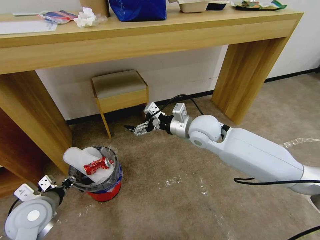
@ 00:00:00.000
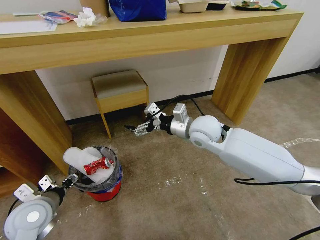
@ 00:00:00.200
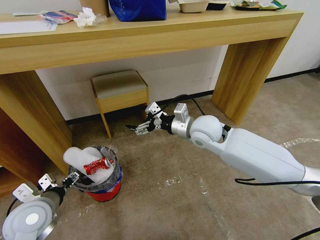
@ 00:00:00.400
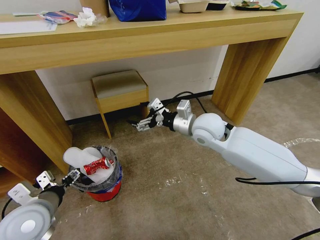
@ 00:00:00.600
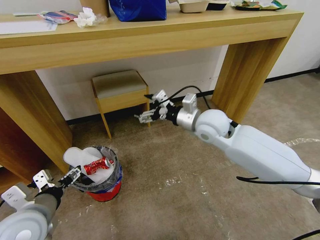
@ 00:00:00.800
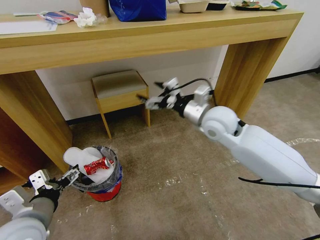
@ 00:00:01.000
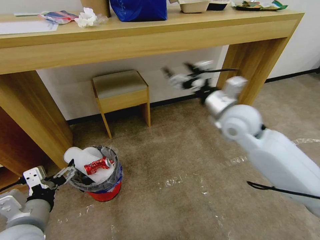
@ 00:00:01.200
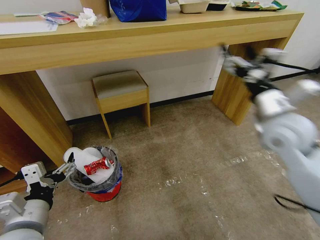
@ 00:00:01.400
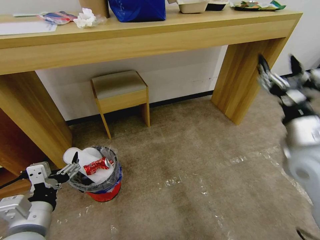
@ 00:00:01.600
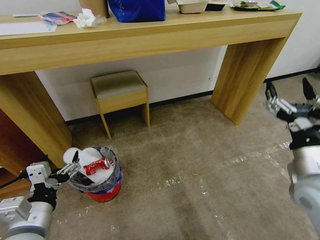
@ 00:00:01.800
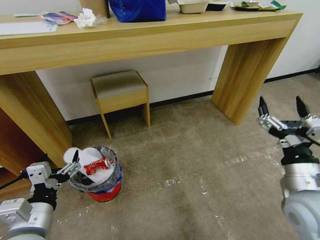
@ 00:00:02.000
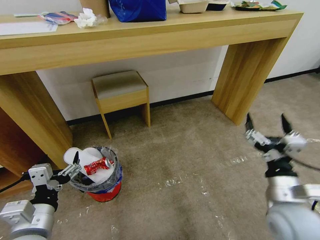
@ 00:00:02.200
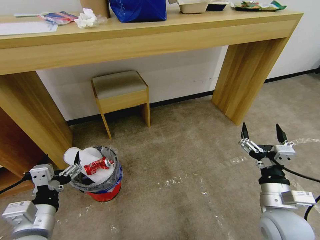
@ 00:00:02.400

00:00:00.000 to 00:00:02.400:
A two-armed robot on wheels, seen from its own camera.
Task of the whole recording: Pick up the trash bin and place the garbage on the floor into it.
00:00:00.000 to 00:00:01.200: The left gripper heads backward and upward, covering about 10 cm, and opens. The right gripper heads to the right and upward, covering about 10 cm.
00:00:01.200 to 00:00:02.400: The right gripper is displaced backward and downward by roughly 25 cm.
